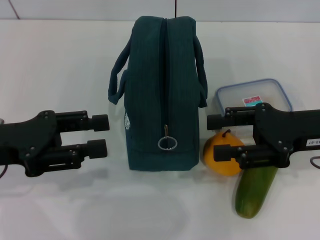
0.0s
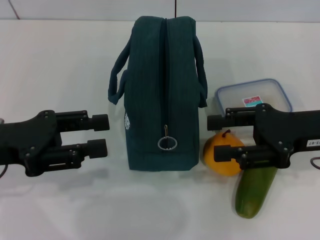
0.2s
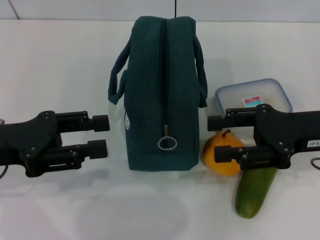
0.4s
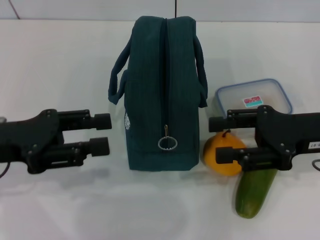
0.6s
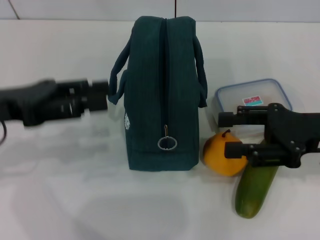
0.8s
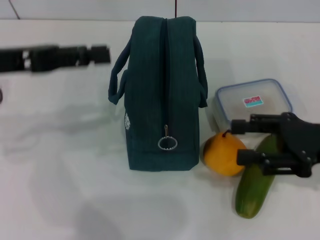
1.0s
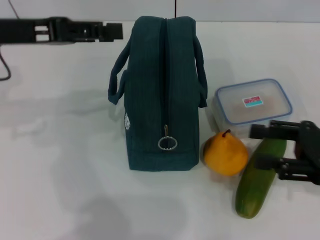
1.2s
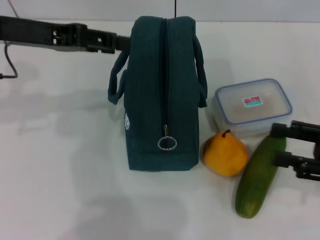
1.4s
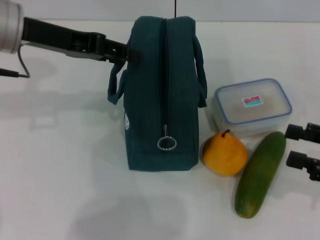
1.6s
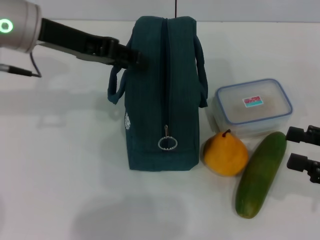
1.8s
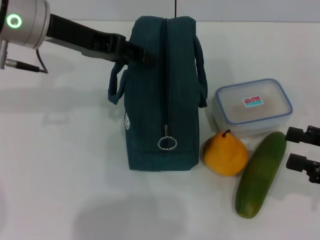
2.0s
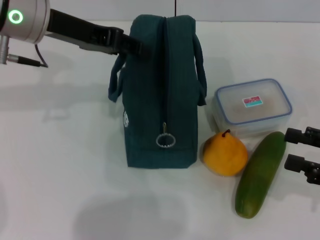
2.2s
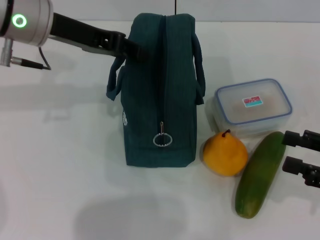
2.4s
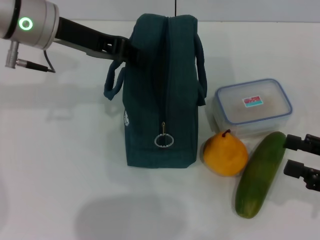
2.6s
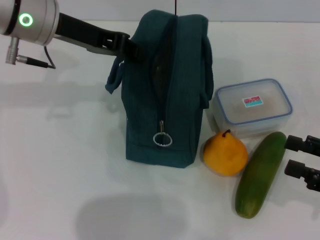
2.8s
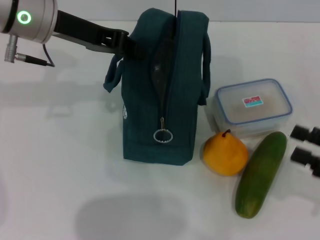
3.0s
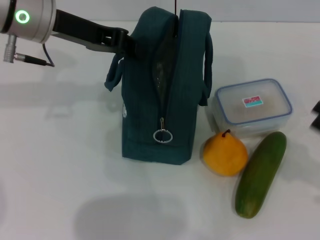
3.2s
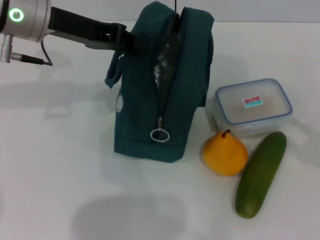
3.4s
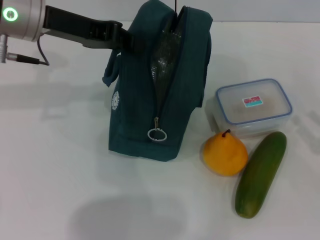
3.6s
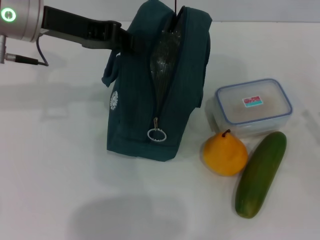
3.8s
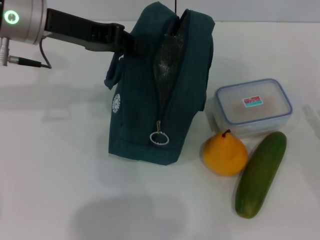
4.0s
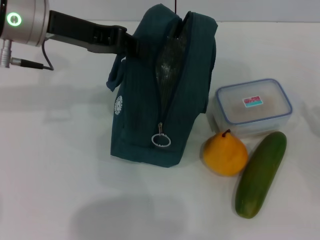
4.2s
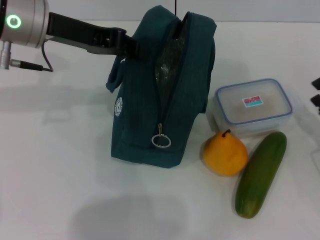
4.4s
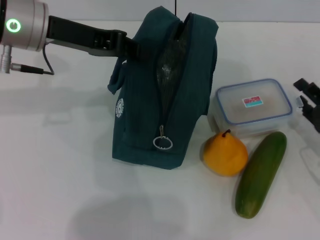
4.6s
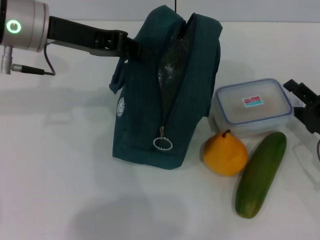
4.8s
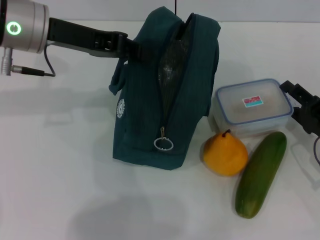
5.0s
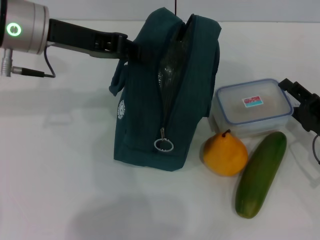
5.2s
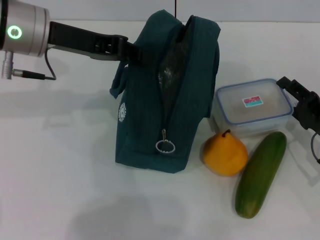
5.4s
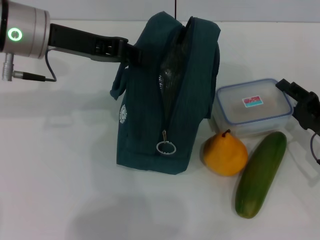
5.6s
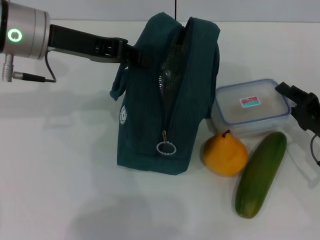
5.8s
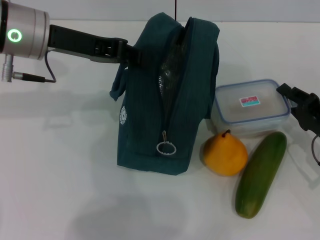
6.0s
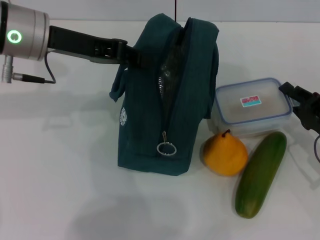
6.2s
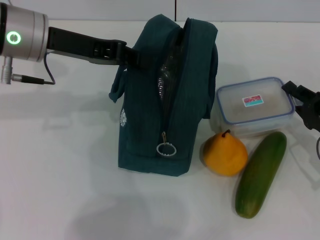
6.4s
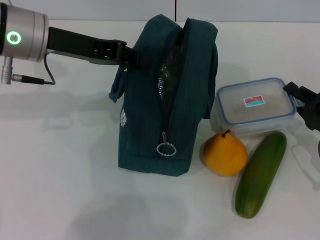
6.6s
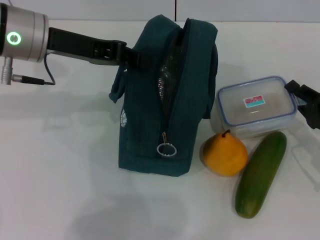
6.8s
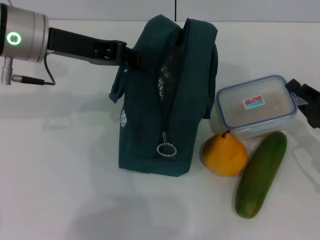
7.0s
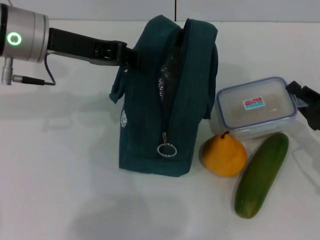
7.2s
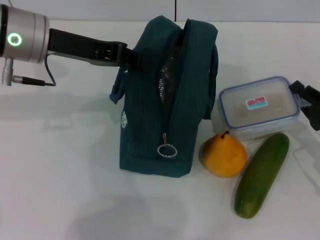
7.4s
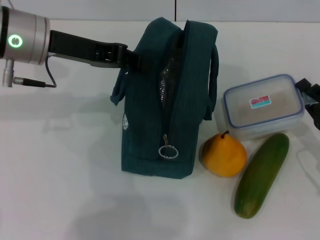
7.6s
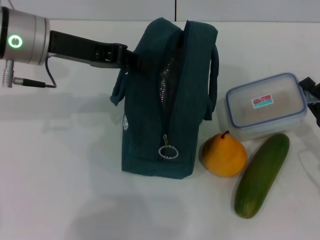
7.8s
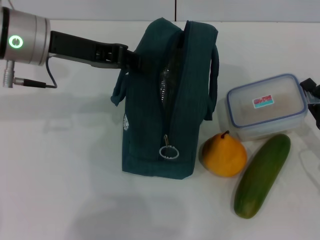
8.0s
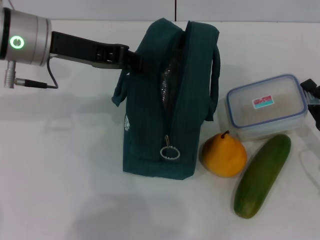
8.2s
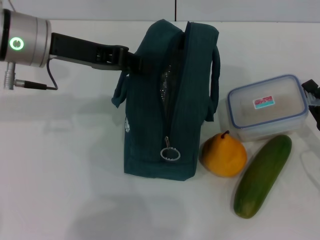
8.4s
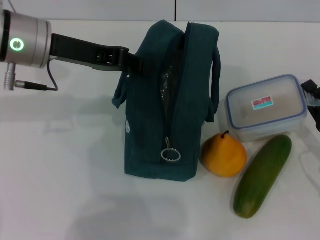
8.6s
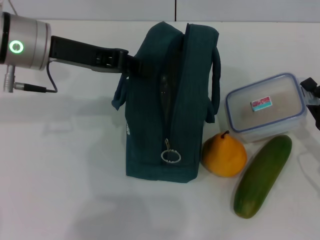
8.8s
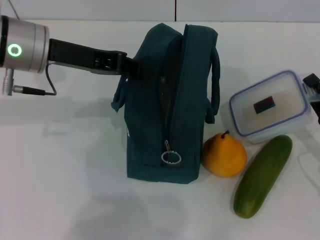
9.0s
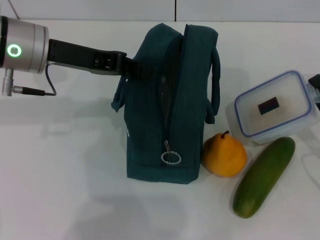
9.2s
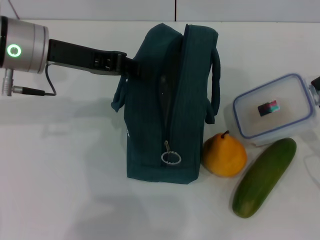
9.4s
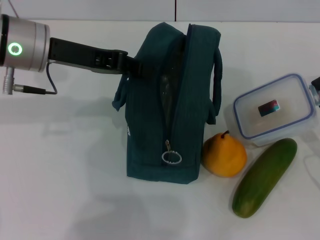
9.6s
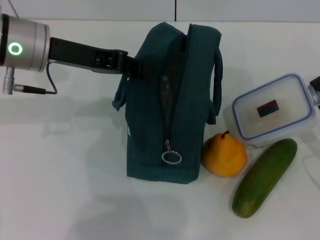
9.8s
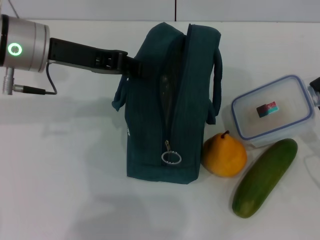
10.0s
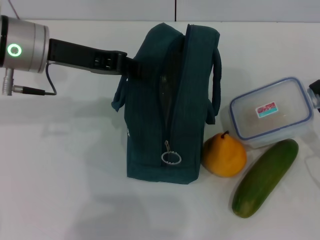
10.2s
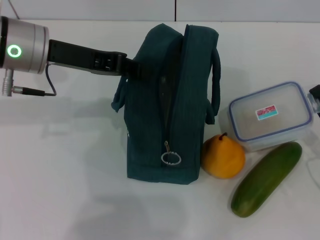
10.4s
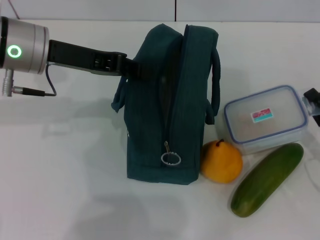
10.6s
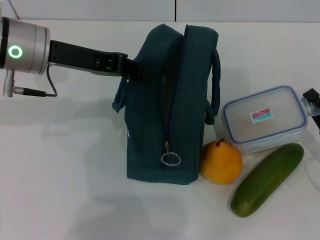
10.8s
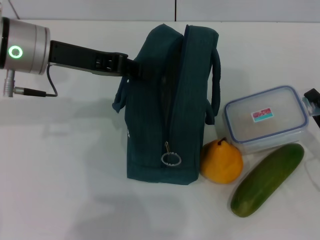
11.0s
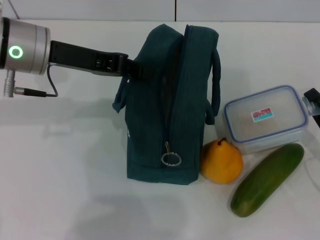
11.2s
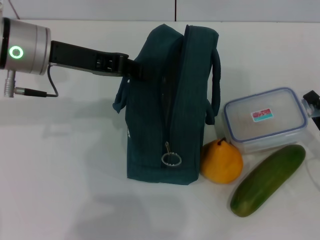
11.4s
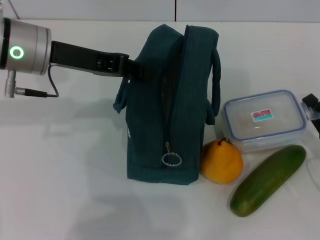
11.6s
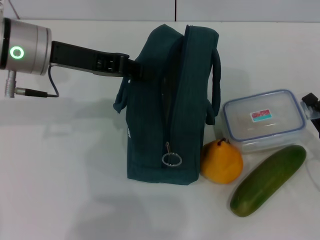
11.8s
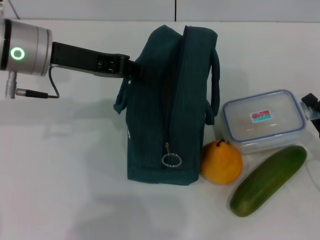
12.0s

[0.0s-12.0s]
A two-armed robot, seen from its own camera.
Step, 0.0s to 4.2s: Hold the lunch bag with your left hand.
Step, 4.4s to 6.8s: Pick up the lunch box with your right hand.
0.0s to 1.6s: The left gripper moves forward, upward and to the right, some 15 cm. The right gripper goes roughly 10 cm to the right and backward.
1.6s to 3.0s: The left gripper closes its fingers.
3.0s to 4.4s: The right gripper travels downward by some 5 cm.
4.4s to 10.4s: The grippers move only a little.
10.4s to 12.0s: The two grippers keep their place.

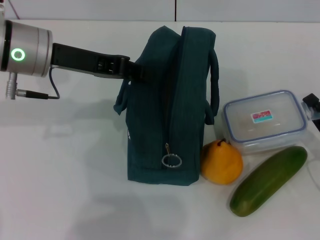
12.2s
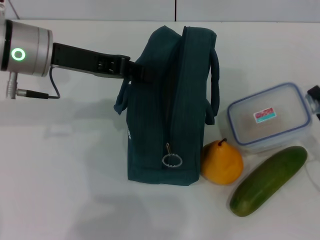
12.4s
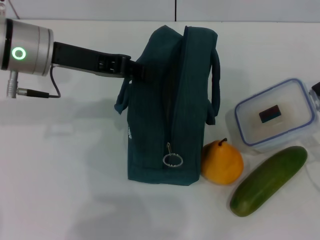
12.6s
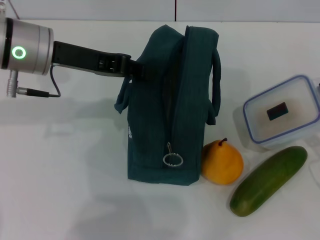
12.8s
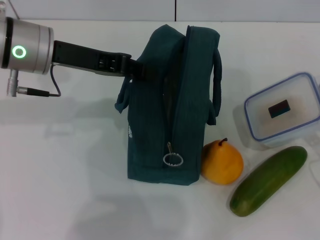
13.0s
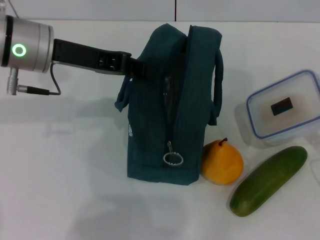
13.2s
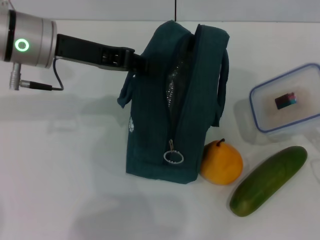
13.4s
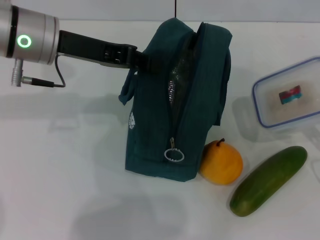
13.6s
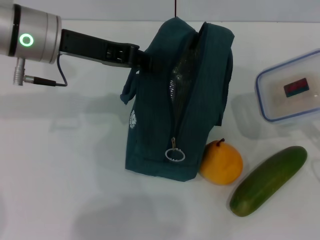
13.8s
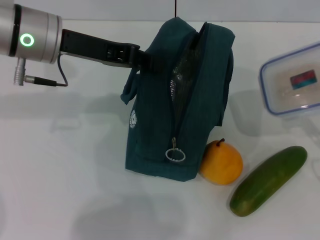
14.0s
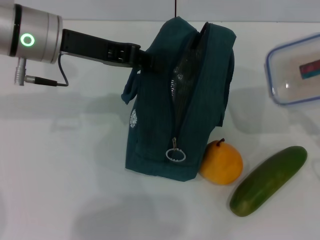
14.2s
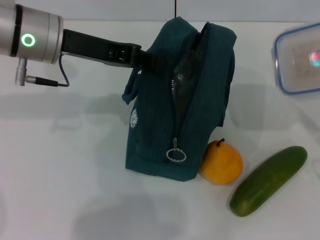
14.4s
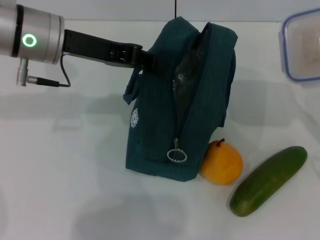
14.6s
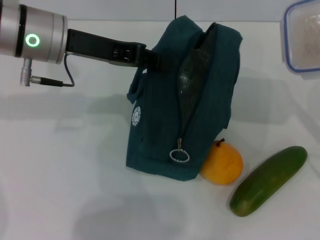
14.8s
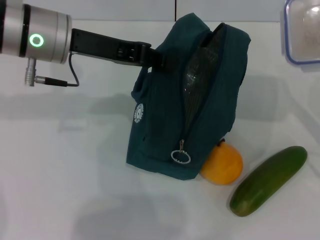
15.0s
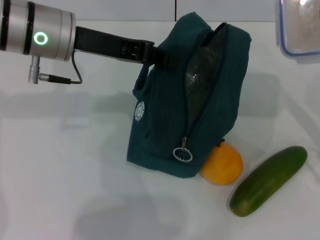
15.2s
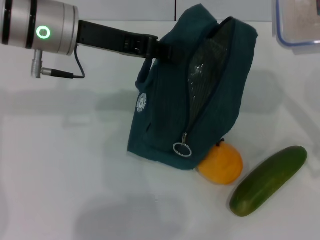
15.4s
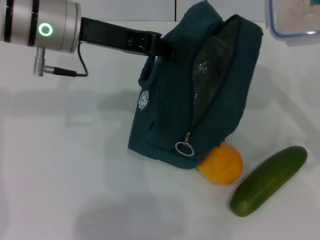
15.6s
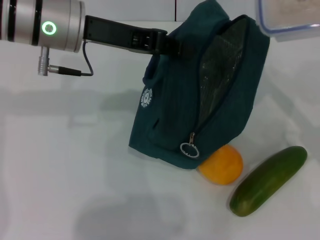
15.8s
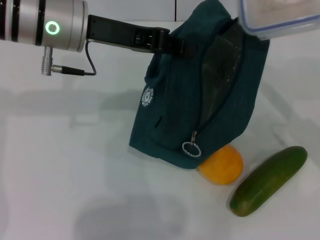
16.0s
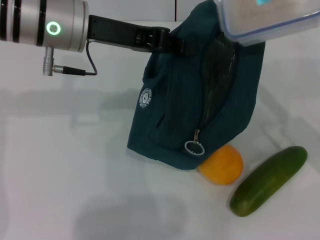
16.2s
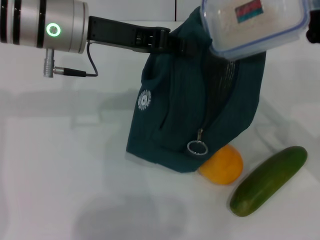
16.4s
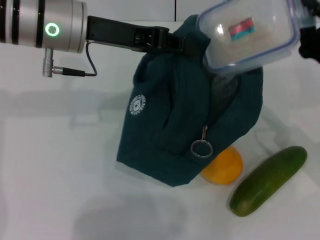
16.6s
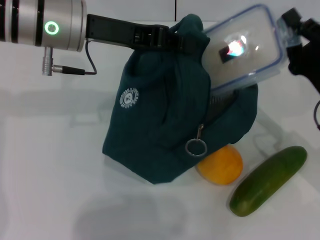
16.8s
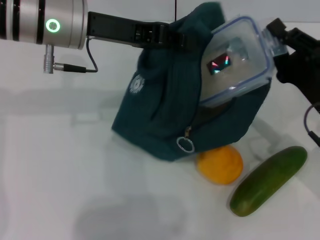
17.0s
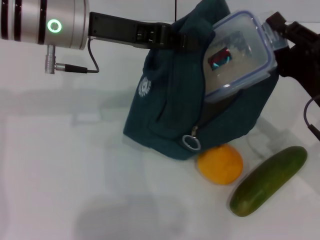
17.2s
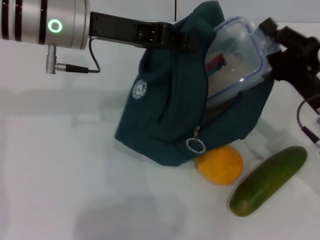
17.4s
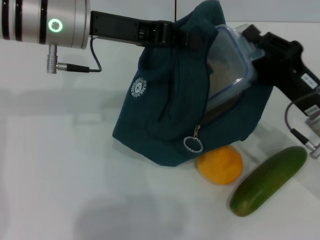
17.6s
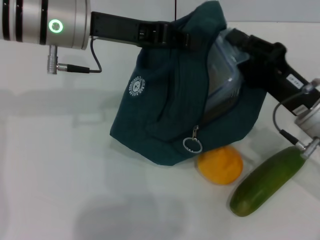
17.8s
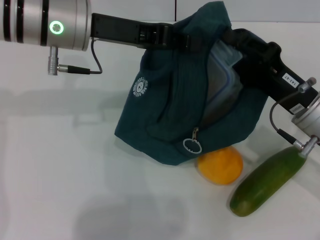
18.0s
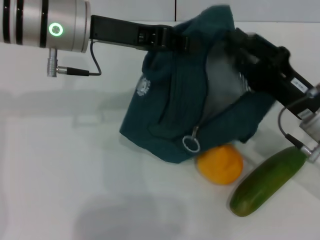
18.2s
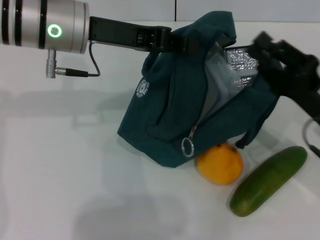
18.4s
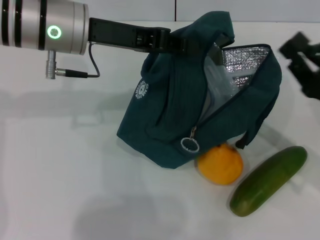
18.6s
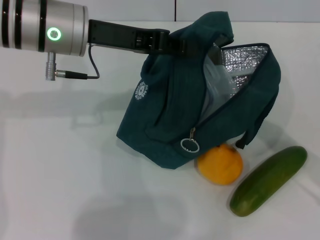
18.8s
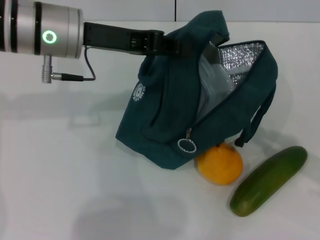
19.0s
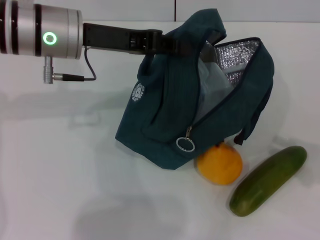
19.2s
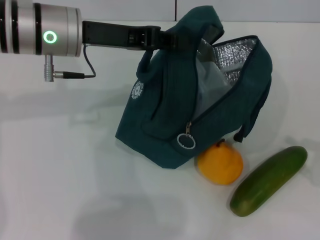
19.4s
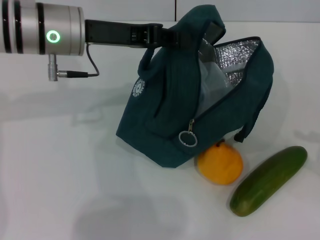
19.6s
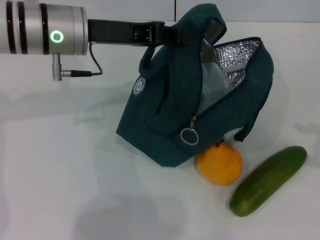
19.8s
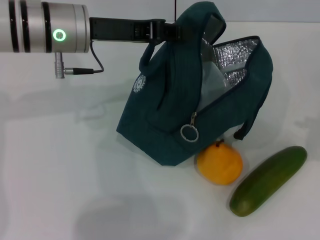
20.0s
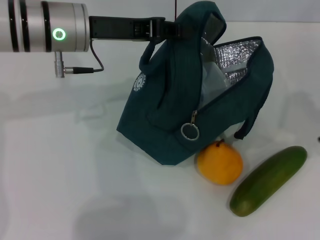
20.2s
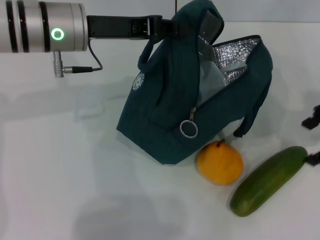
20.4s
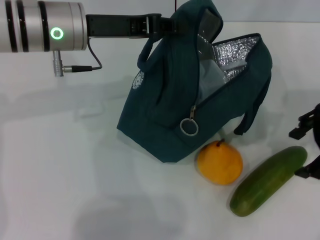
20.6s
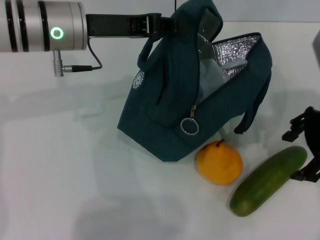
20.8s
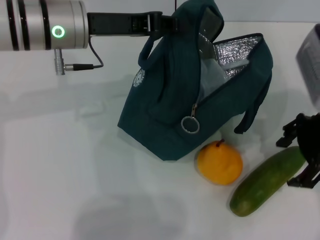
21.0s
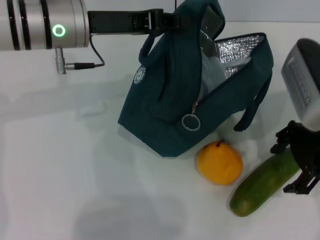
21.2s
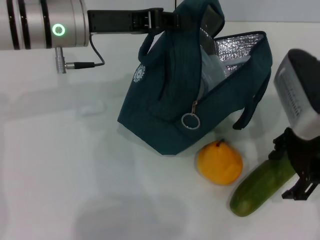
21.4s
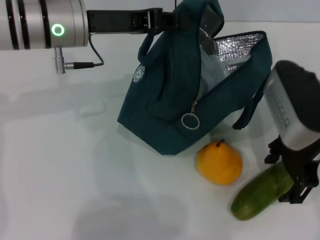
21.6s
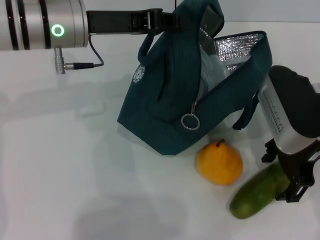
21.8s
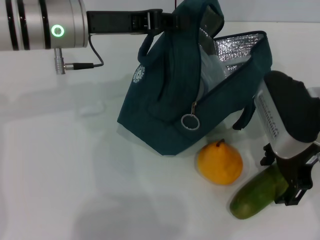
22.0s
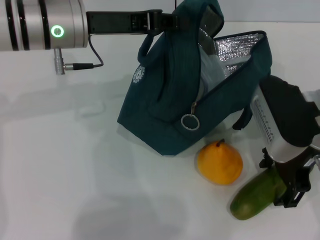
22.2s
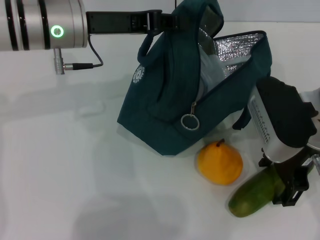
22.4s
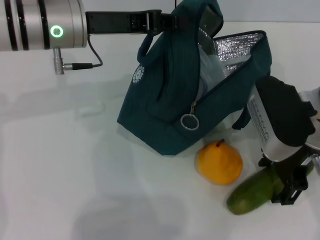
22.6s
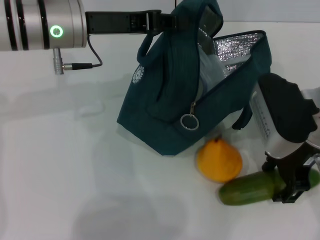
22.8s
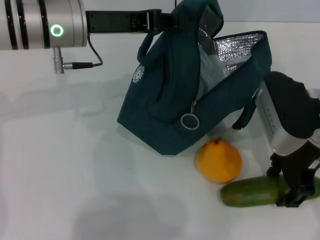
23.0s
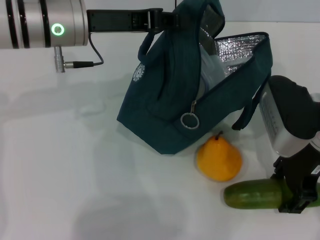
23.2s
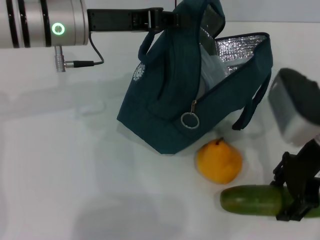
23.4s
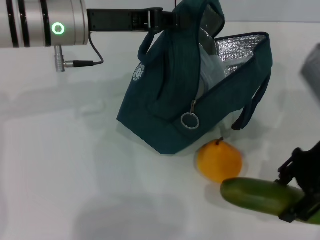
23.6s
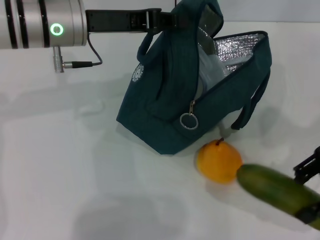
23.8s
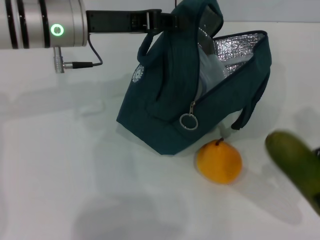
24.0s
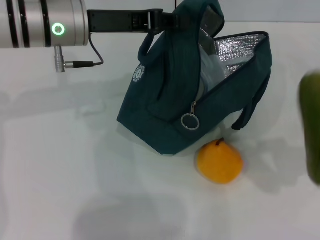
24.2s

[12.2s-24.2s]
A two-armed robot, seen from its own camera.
Step, 12.2s to 18.0s: Place the lunch box into the lunch bag with your right hand.
Step, 18.4s to 23.2s: Pick up the cucumber with your right hand.
13.8s to 15.2s: The right gripper shifts by some 5 cm.
15.2s to 16.6s: The right gripper travels to the left by some 5 cm.
18.2s to 19.8s: The right gripper heads to the right and upward, covering about 20 cm.
19.8s to 21.2s: The right gripper travels to the left by approximately 20 cm, and opens its fingers.
21.2s to 22.6s: The grippers make only small movements.
22.6s to 24.2s: The right gripper goes some 20 cm to the right.
